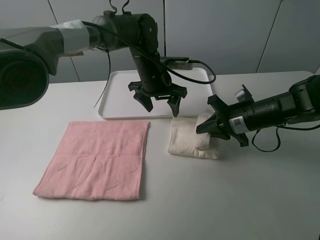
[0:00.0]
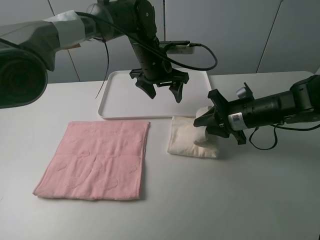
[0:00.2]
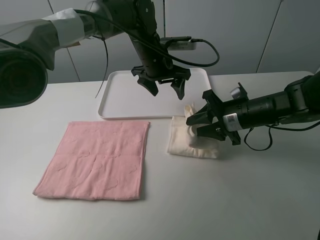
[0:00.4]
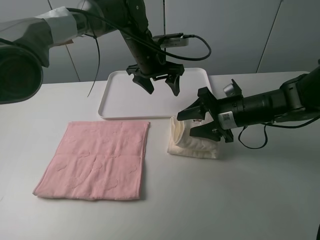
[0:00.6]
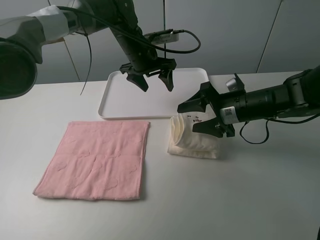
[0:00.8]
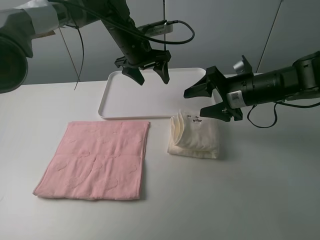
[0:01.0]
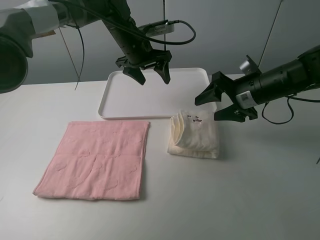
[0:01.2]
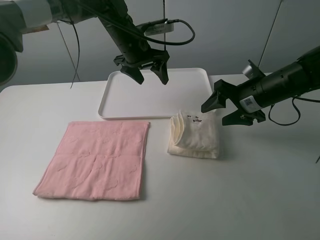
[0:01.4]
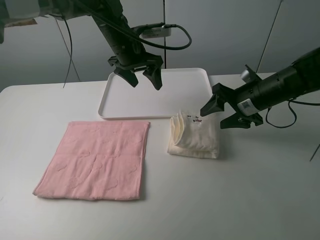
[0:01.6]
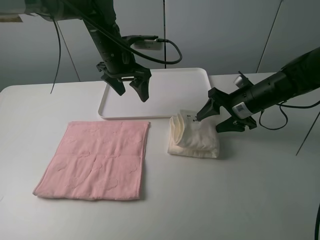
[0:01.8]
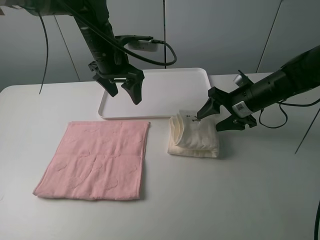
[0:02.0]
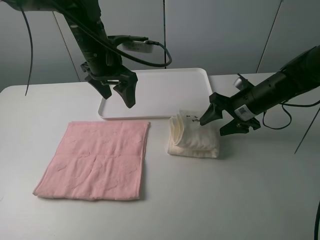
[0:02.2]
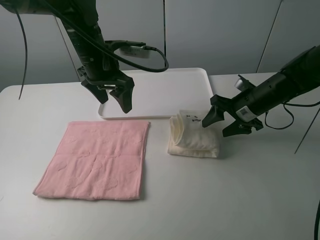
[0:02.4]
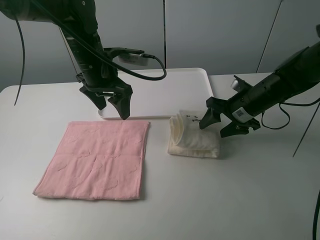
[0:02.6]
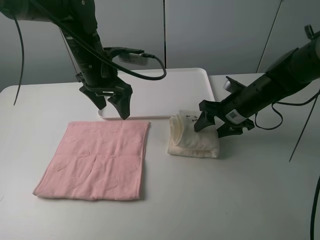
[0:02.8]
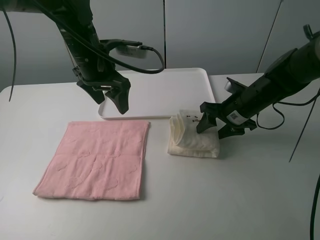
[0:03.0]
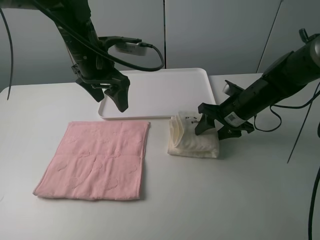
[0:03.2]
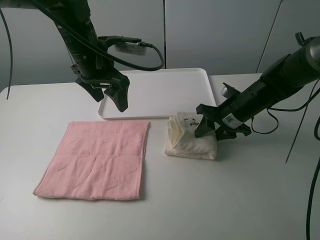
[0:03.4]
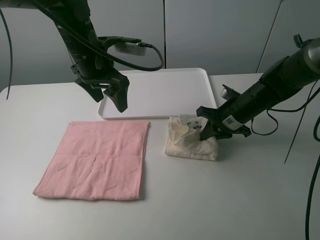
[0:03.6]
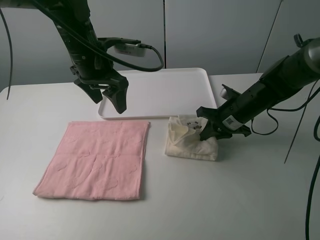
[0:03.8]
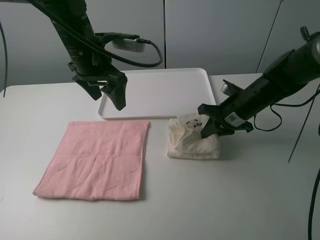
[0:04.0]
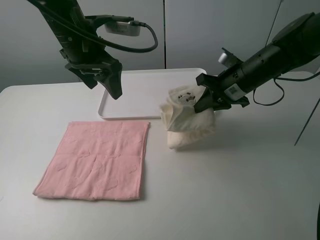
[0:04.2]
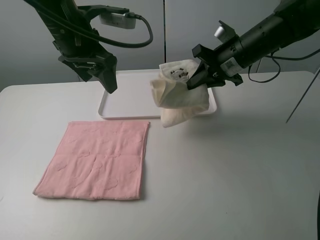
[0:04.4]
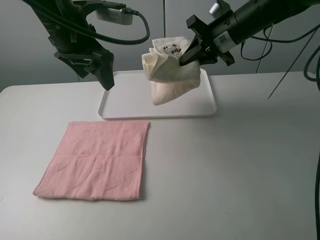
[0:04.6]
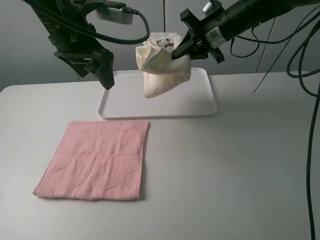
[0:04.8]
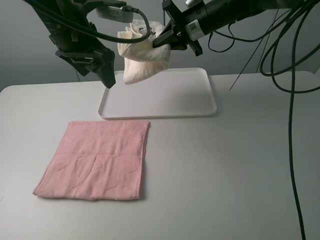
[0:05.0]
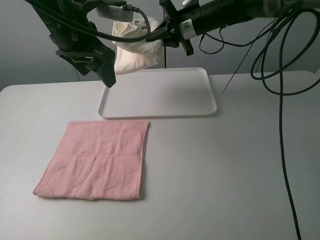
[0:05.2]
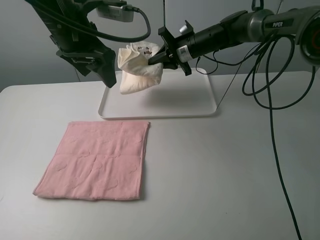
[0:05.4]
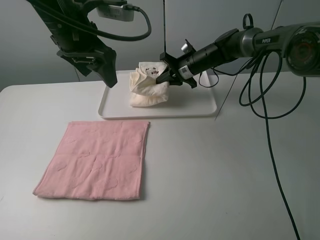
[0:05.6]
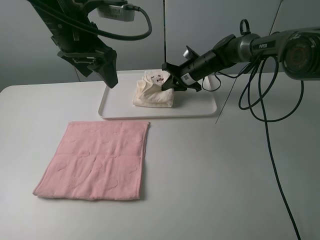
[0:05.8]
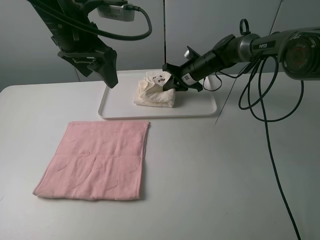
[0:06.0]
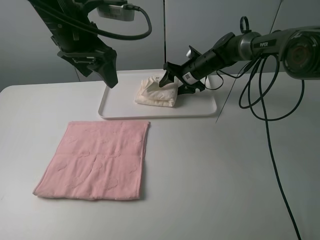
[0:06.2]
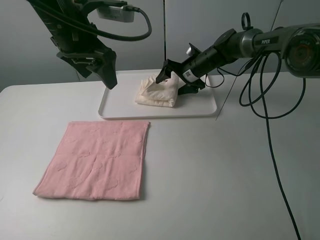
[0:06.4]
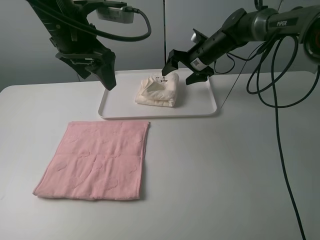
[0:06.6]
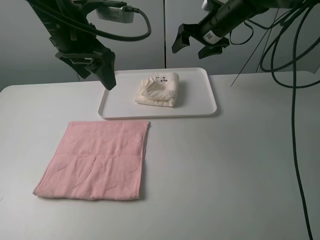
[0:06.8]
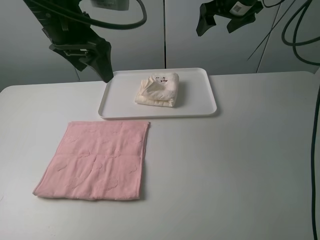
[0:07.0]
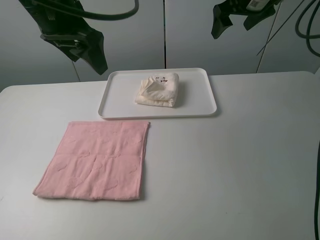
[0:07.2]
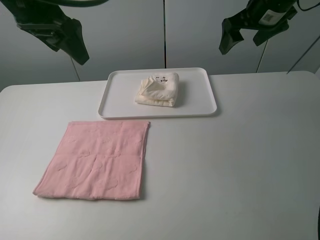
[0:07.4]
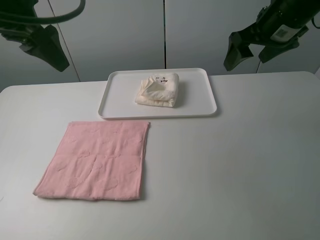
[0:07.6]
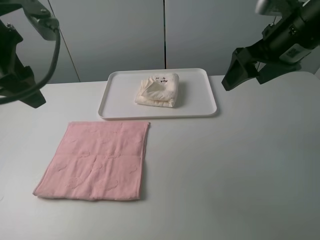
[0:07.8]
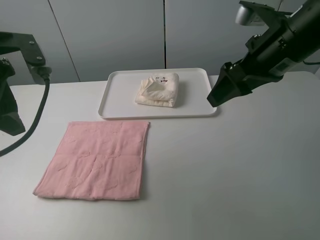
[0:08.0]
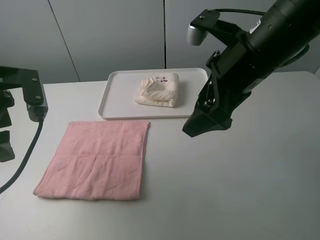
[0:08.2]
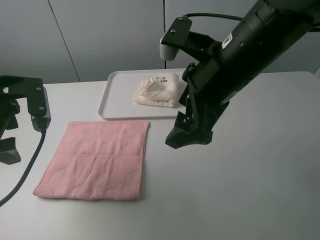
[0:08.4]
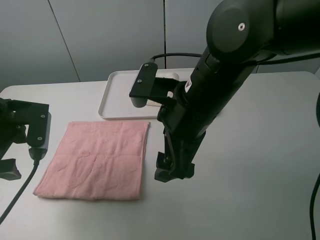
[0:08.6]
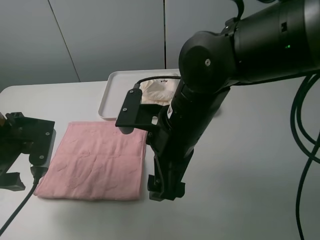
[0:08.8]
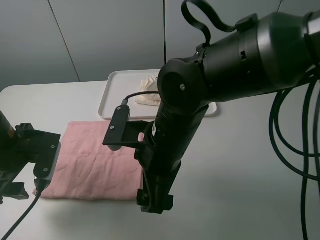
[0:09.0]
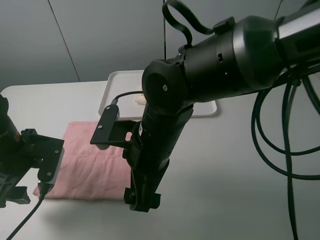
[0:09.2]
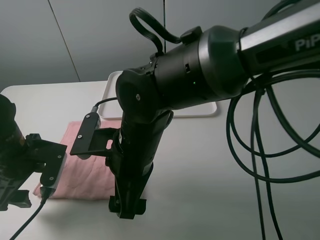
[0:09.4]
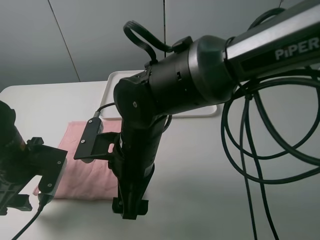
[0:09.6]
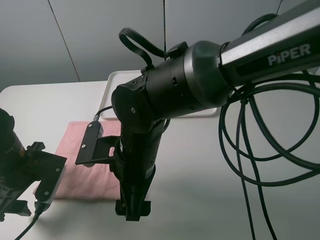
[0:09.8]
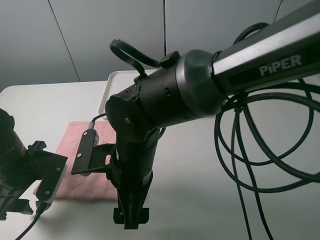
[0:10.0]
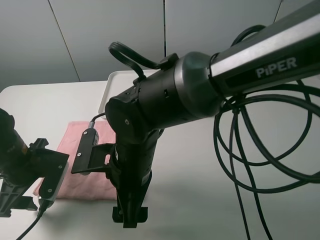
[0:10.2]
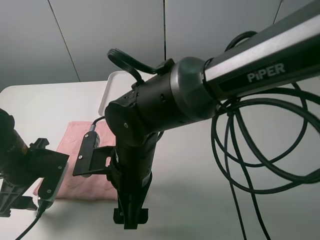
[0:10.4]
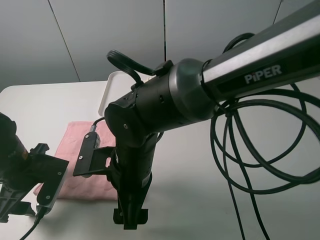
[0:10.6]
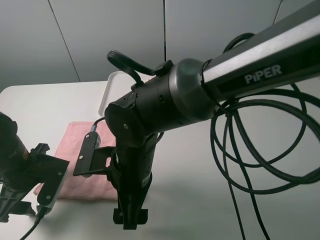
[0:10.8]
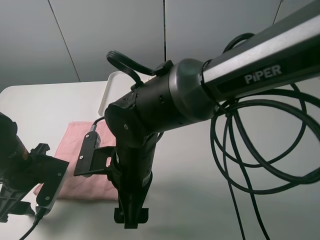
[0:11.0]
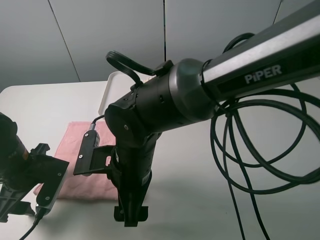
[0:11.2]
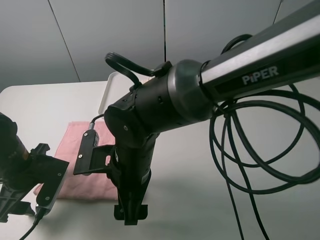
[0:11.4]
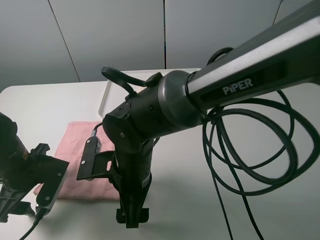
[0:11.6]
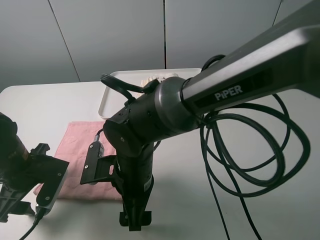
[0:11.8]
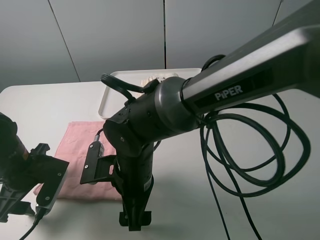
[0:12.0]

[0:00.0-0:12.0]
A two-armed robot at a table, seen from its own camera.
Task of the whole recording: fold one of the towels by two grippers and place it on the tray,then fold another towel by two grippers and place it on the folded towel.
Step, 0:00.8 to 0:03.6: Grasp the white towel with the right gripper.
Step, 0:03.8 to 0:06.4: Move the white towel to the plate with the right gripper.
0:00.0 to 0:01.6: The right gripper opens, while the left gripper moves to the left and upward, some 10 cm.
0:01.6 to 0:03.0: The left gripper heads backward, covering approximately 5 cm.
0:03.0 to 0:04.4: The left gripper moves upward, some 5 cm, while the right gripper goes some 10 cm upward, and closes.
0:04.4 to 0:06.0: The right gripper goes some 20 cm forward and downward.
0:06.0 to 0:07.6: The right gripper goes roughly 30 cm upward, backward and to the right, and opens; the left gripper goes approximately 10 cm to the left and upward.
0:07.6 to 0:09.0: The left gripper goes roughly 20 cm downward; the right gripper moves to the left, backward and downward, some 30 cm.
0:09.0 to 0:10.4: The right gripper moves some 5 cm.

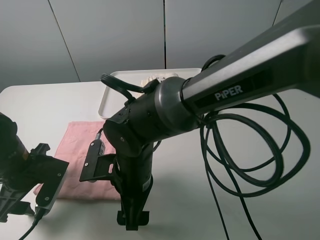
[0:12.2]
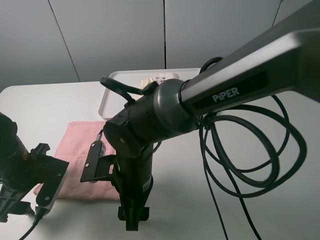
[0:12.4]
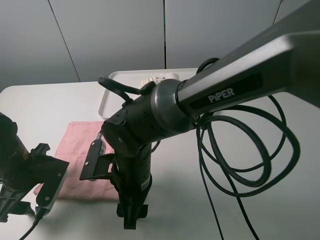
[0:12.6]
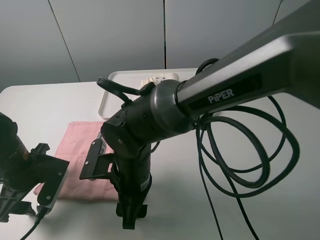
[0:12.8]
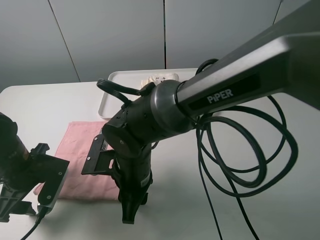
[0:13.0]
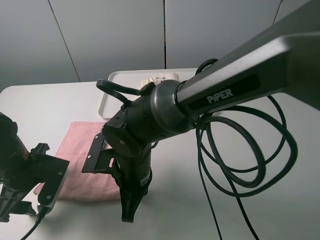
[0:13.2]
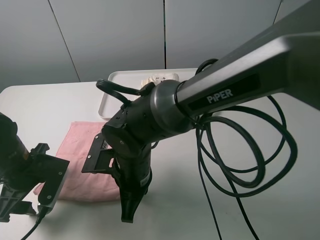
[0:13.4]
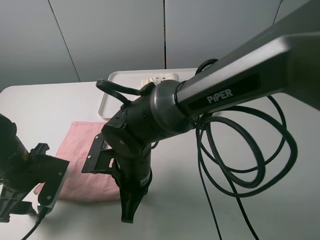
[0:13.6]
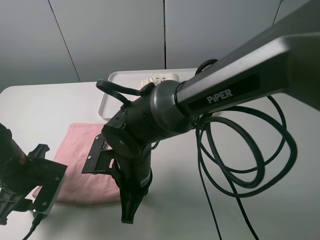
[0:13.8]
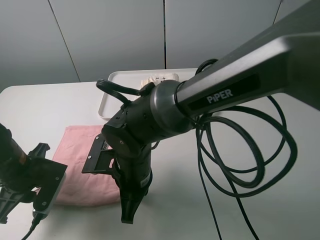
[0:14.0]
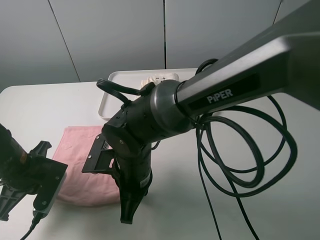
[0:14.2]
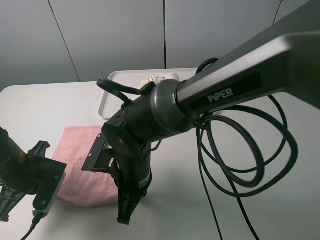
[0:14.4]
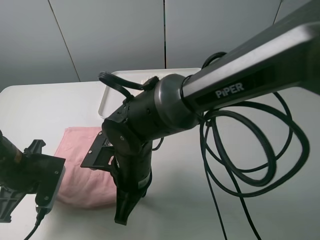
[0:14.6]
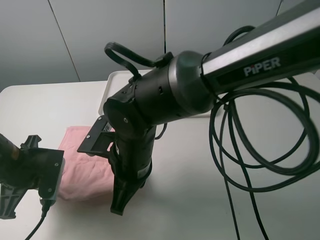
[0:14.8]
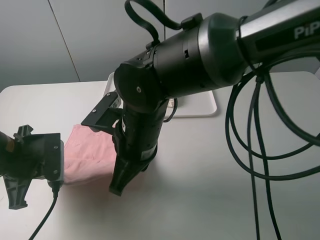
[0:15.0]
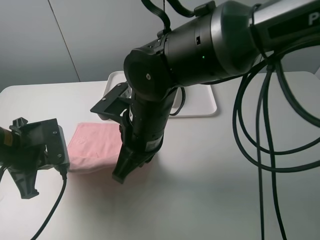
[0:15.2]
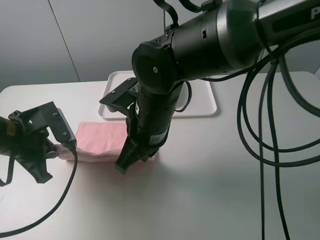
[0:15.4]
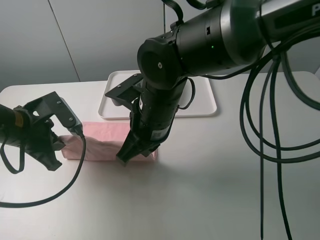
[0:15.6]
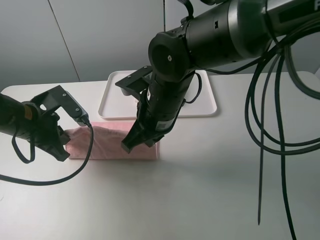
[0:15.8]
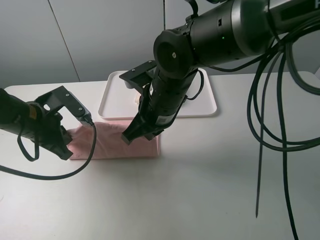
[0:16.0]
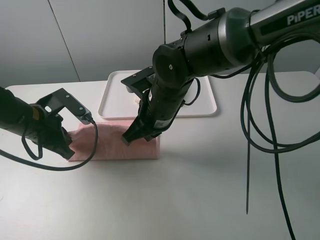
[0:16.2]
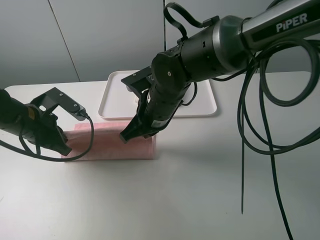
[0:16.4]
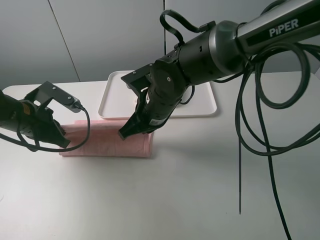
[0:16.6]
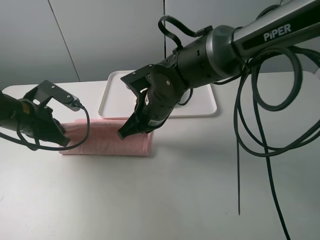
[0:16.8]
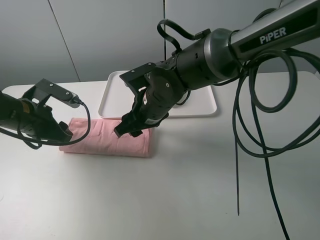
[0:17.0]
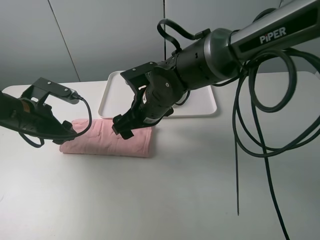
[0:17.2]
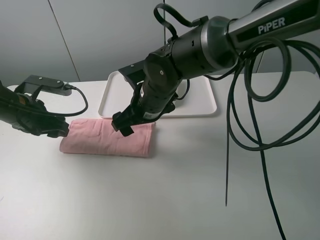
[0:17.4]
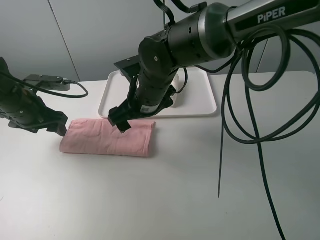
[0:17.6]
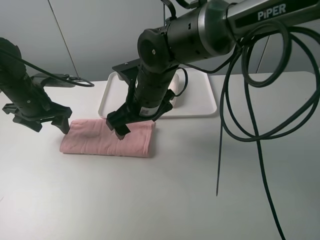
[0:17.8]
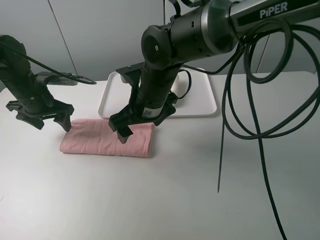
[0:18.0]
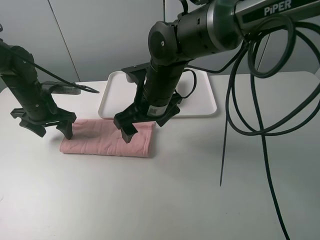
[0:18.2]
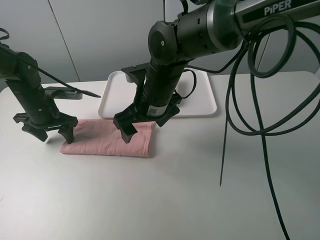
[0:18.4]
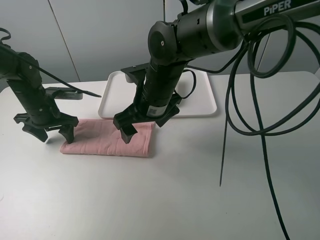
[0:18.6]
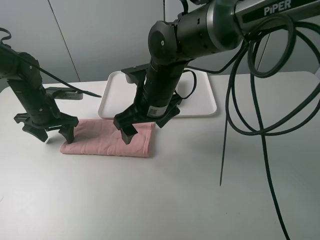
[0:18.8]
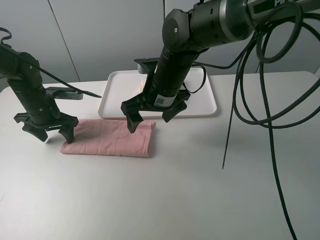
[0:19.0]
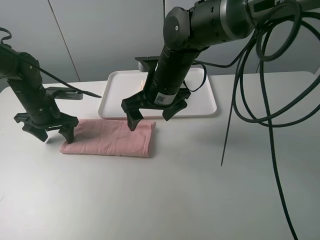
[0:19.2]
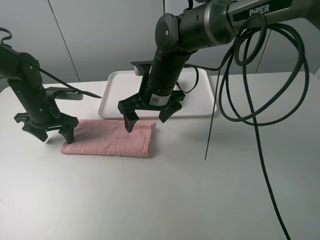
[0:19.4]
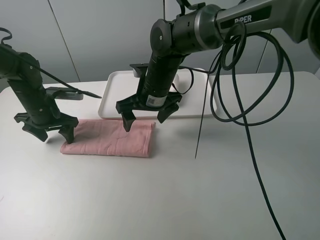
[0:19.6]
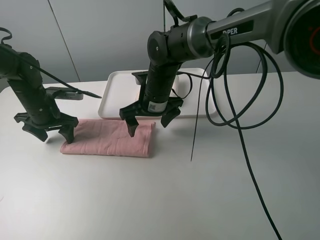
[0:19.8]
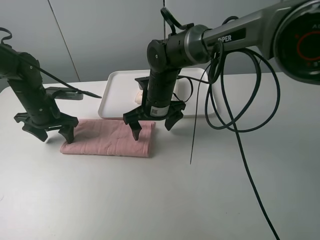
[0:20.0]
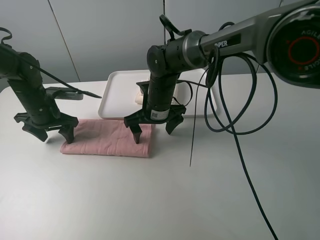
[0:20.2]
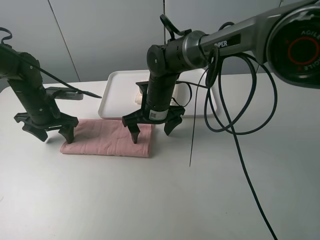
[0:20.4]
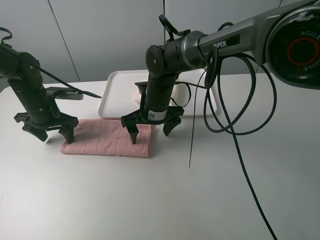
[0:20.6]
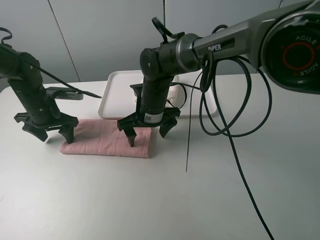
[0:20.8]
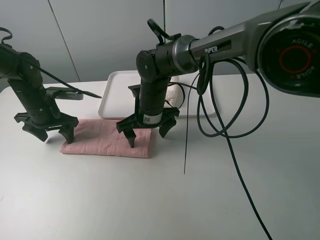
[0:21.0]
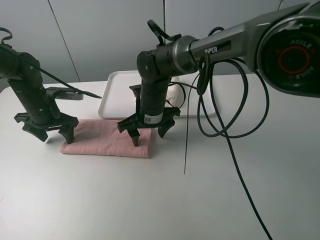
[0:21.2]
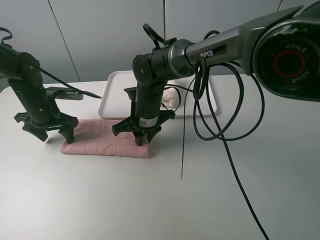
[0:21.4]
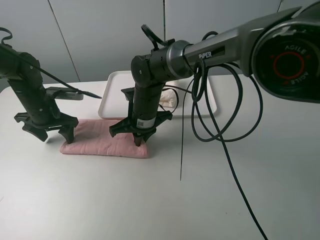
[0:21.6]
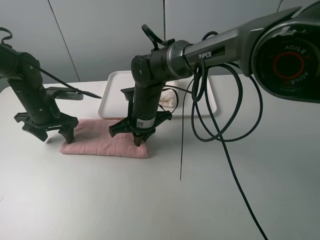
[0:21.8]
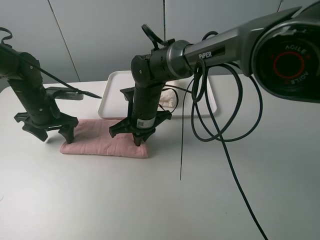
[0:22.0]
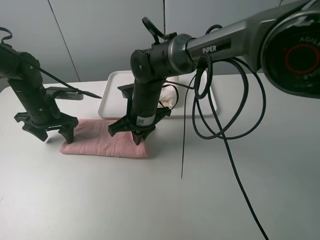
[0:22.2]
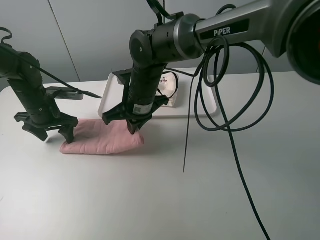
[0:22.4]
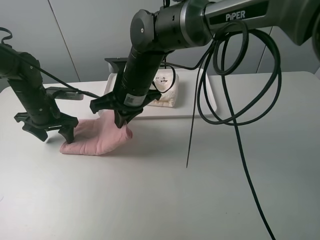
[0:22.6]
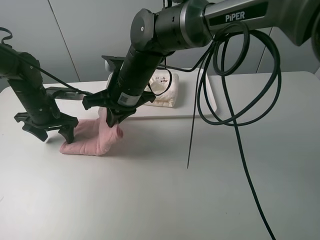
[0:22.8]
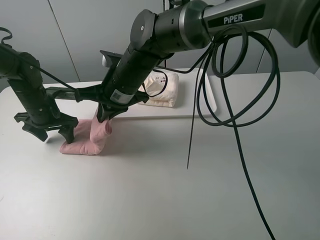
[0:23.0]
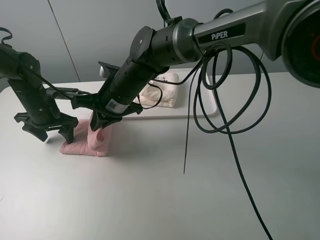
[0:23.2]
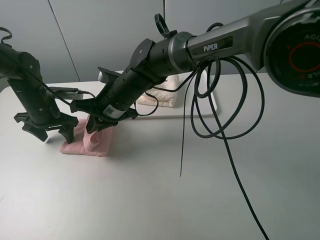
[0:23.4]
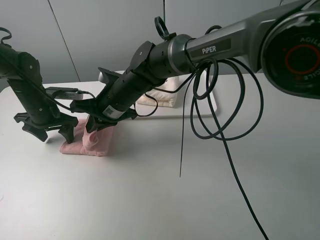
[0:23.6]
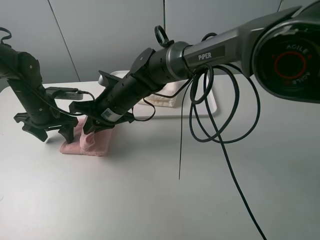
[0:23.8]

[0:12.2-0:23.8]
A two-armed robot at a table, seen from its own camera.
Task of the whole recording: fold one of the towels by two grippers and place it on the tray,then fold another towel by two grippers and place it on the folded towel.
Step, 0:12.2 to 0:14.2: Grasp the pink towel with the left gripper.
Step, 0:14.4 to 0:17.2: Fold the pink towel upwards with the left gripper.
Step, 0:17.4 to 0:18.8: Press the pink towel with the left gripper.
Step, 0:19.0 to 0:21.6: Grasp the pink towel with the right gripper.
0:12.2 to 0:13.6: The right gripper closes.
0:13.6 to 0:15.0: The left gripper closes its fingers; the right gripper goes some 10 cm upward.
0:15.0 to 0:16.6: Both grippers travel together forward, some 10 cm.
0:16.6 to 0:18.0: The left gripper is displaced forward by some 10 cm, and opens its fingers, while the right gripper opens.
0:18.0 to 0:19.4: The grippers move only a little.
0:19.4 to 0:21.0: The right gripper heads downward, covering approximately 5 cm.
0:21.0 to 0:22.4: The right gripper is displaced upward by approximately 5 cm, and closes up.
0:22.4 to 0:23.8: The right gripper moves roughly 5 cm.
